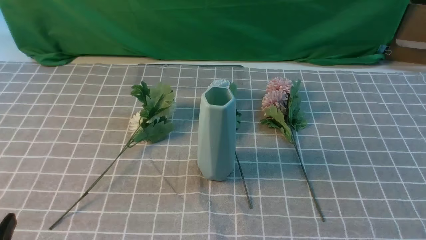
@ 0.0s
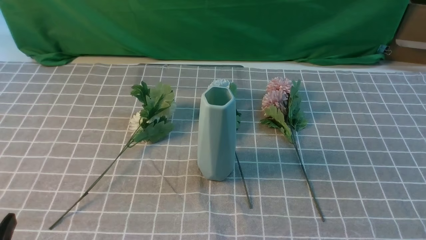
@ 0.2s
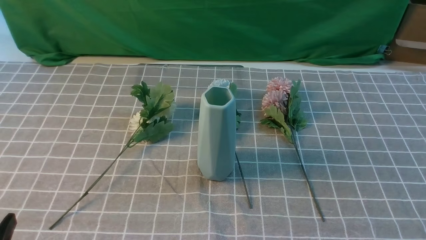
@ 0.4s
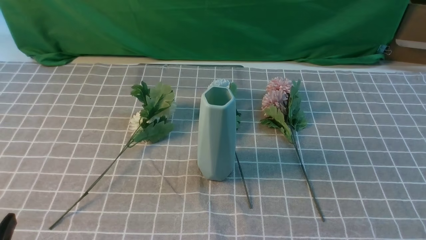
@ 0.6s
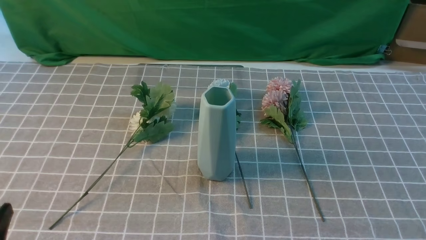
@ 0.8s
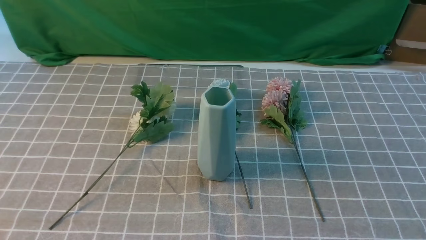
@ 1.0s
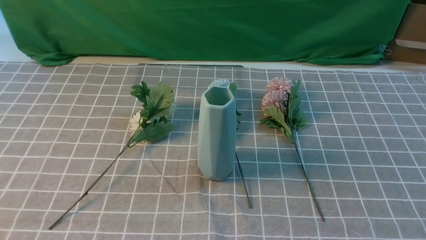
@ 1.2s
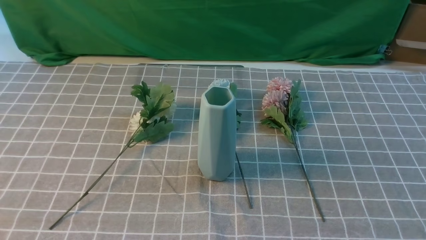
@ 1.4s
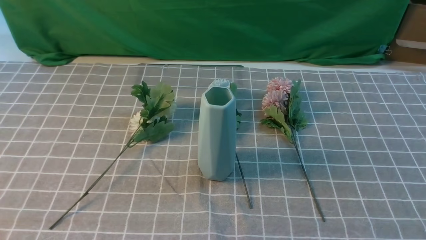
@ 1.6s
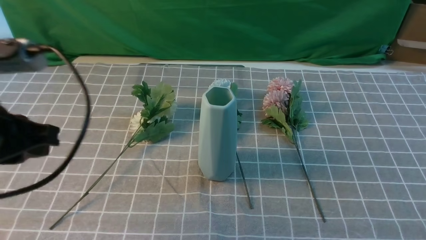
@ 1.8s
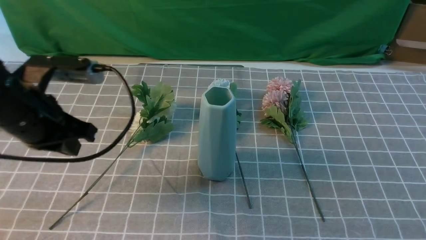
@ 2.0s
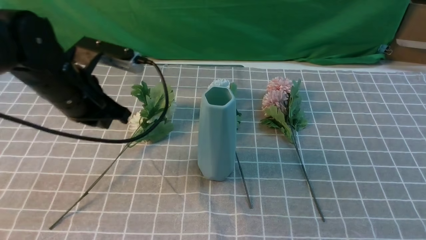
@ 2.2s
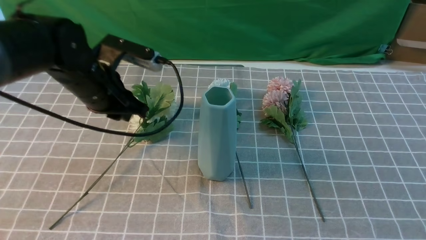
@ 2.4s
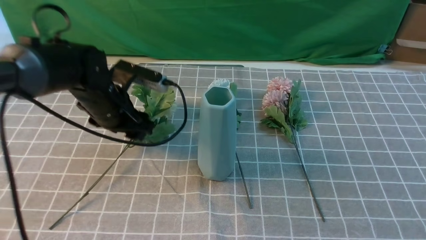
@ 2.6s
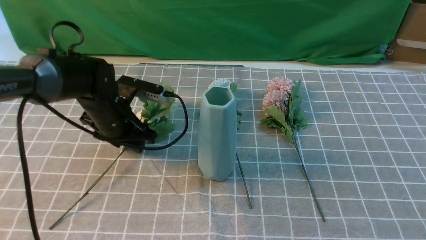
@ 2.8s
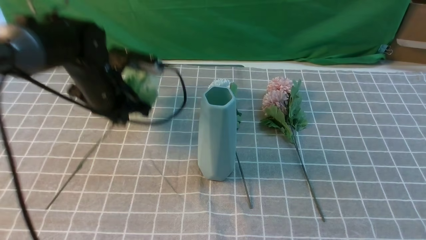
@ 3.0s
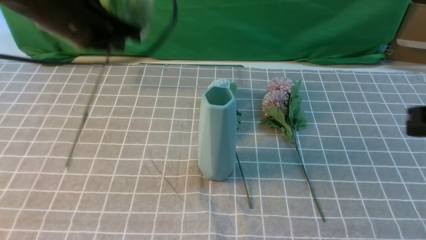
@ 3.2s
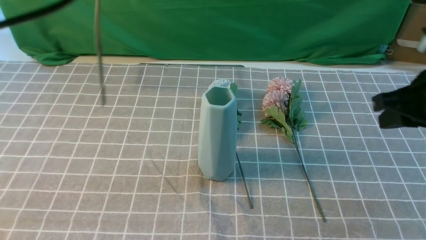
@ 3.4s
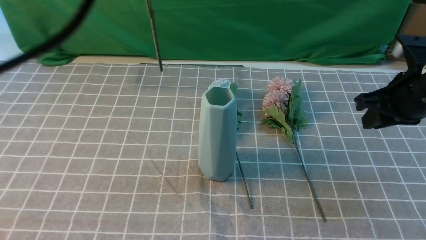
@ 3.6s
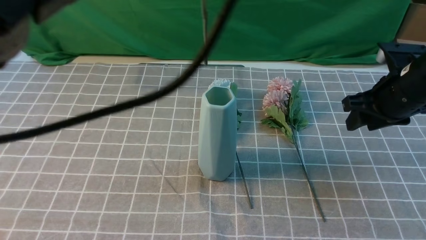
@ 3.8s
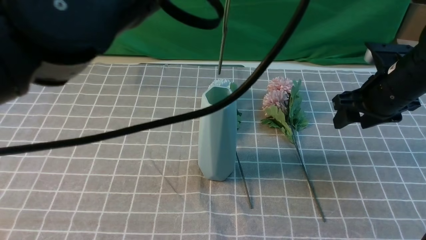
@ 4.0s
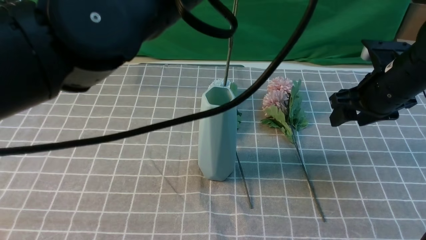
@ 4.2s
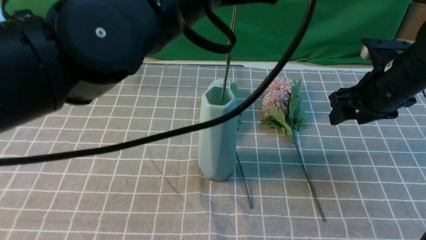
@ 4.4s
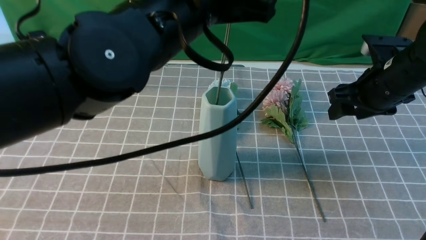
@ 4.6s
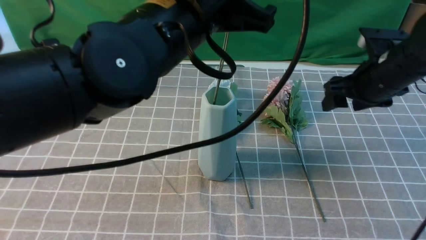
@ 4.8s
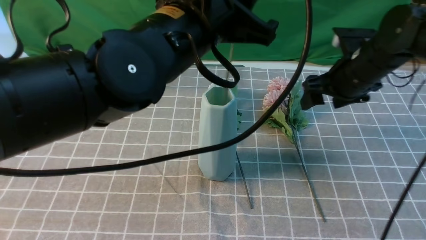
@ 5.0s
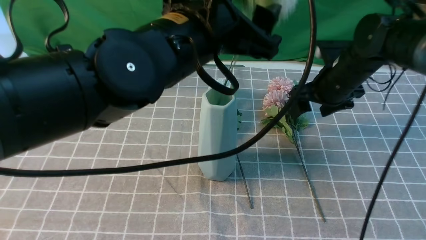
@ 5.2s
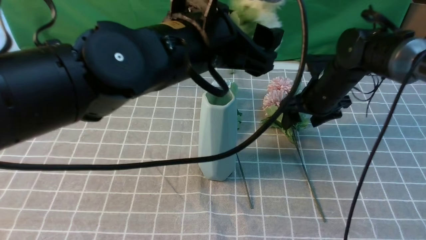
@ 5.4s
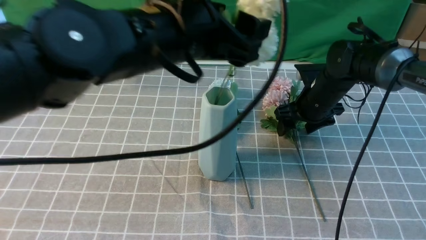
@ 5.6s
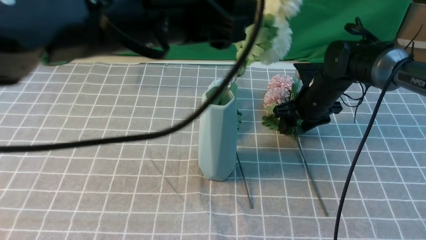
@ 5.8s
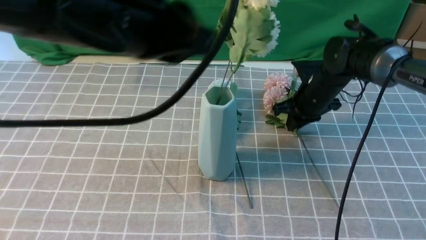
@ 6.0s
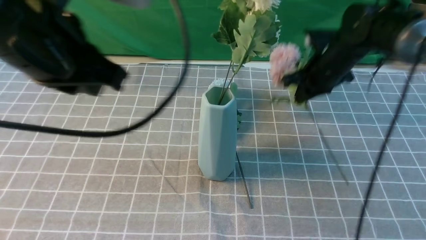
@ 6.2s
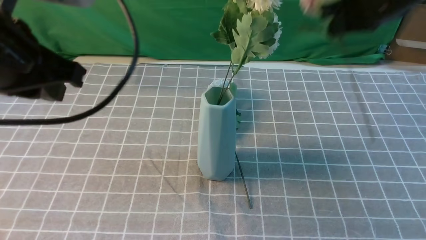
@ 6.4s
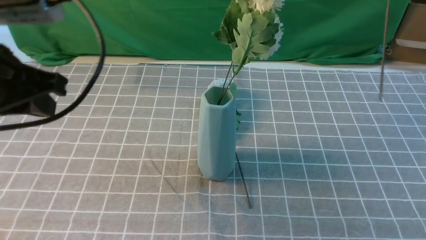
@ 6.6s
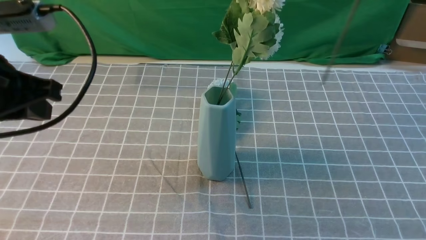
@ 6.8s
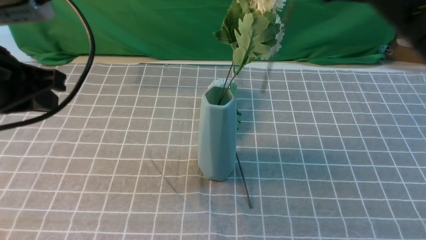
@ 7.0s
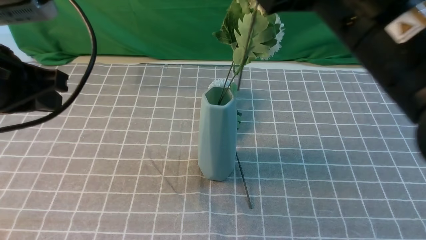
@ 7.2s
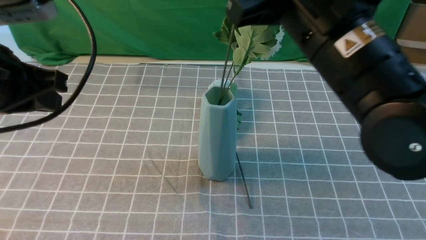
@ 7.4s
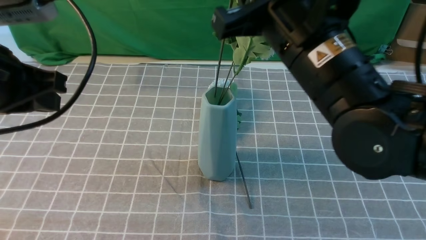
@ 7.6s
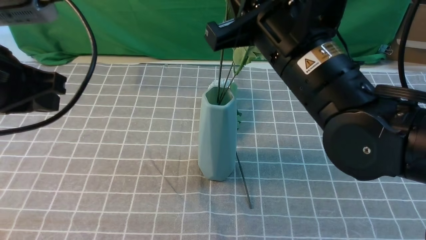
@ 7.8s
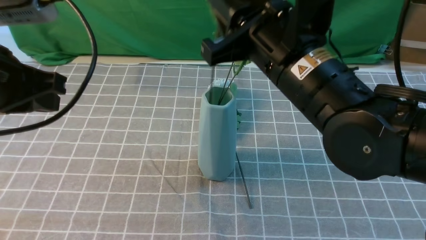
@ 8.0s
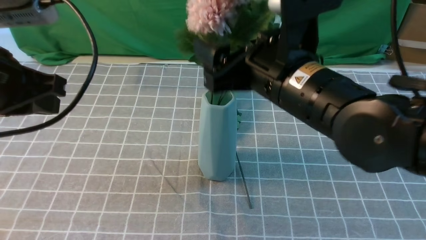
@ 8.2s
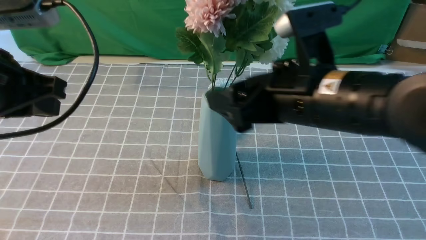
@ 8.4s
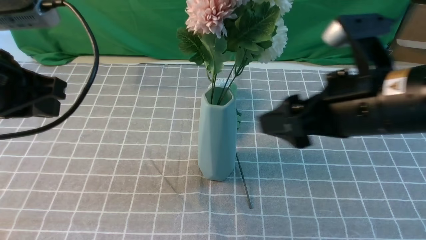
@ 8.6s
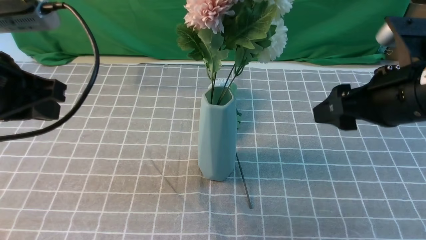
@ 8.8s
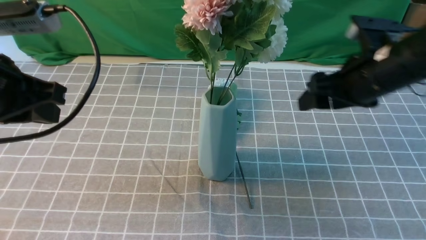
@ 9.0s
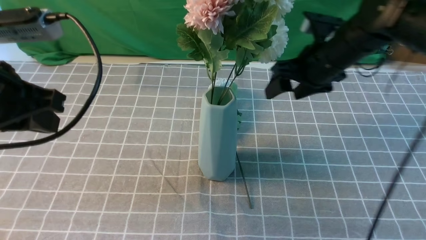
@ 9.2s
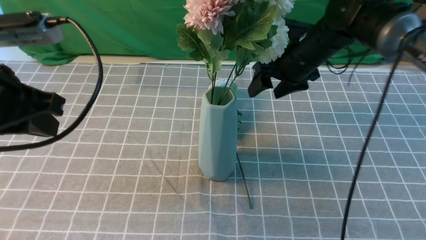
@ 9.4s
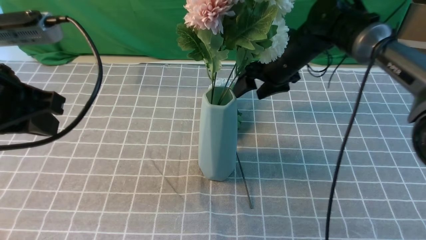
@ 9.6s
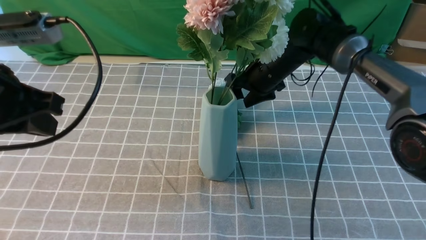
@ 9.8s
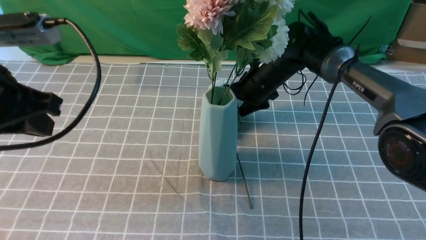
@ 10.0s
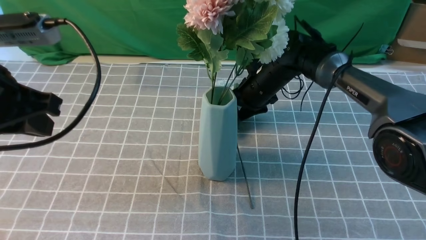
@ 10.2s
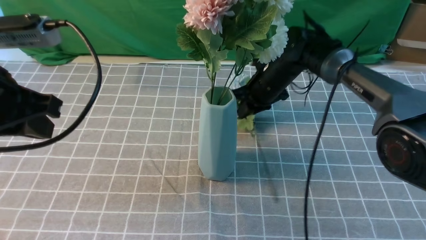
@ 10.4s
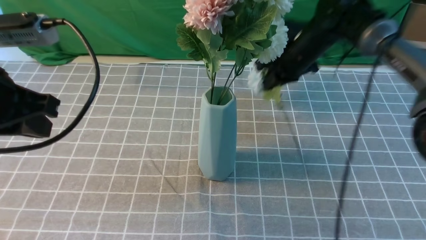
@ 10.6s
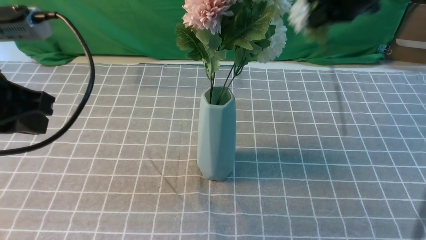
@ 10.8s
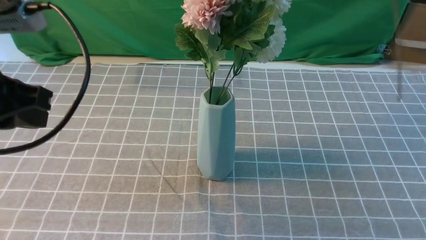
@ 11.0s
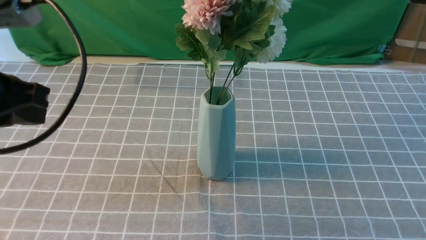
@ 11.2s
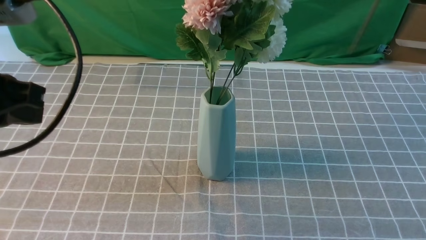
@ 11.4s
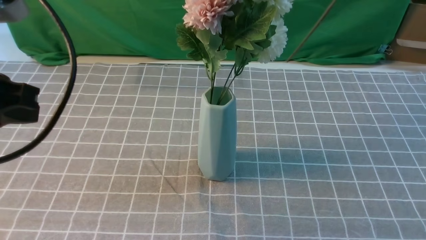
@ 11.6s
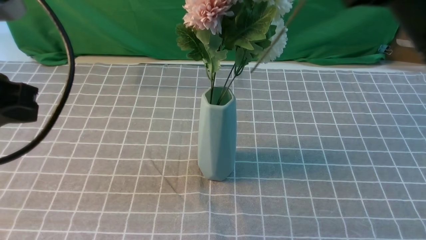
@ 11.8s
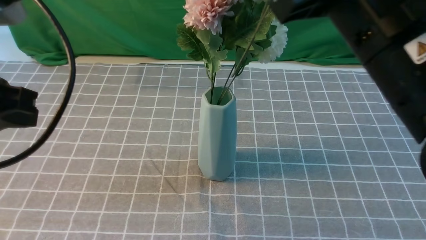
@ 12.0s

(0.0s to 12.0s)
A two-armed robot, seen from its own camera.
Task of the whole recording: insert the flowers into the vase on the table with the grey tablecloth.
Step, 0.0s - 2.8s: use the left arm to grab a bunch of fresh flowers.
Step, 3.0s - 5.6s: use the left arm to insert the flowers into the vase.
Step, 5.8s - 6.0s: use the right arm to grab a bunch of fresh flowers.
Step, 6.2s - 8.4s: use the right arm to insert the flowers into the vase.
Step, 8.6s - 10.4s: use the right arm to grab a bunch of fresh flowers.
1.6s - 3.0s: The right gripper is displaced forward and upward by roughly 15 cm. The left gripper moves forward, roughly 25 cm, and opens and closes again.
3.0s - 4.4s: The left gripper heads upward, to the right and backward, covering some 20 cm; the right gripper heads forward and downward, covering approximately 20 cm, and opens up.
4.4s - 6.0s: The left gripper moves to the left, roughly 5 cm, and opens, then closes once more; the right gripper goes about 15 cm forward, downward and to the left, and closes.
6.0s - 7.6s: The right gripper moves backward, upward and to the left, roughly 30 cm; the left gripper is displaced to the left by roughly 15 cm.
7.6s - 9.0s: The right gripper travels to the right, forward and downward by approximately 15 cm, and opens up.
9.0s - 10.4s: The right gripper moves forward, downward and to the left, roughly 20 cm, and closes.
10.4s - 12.0s: The left gripper shifts by approximately 5 cm. The right gripper goes some 35 cm backward and upward.

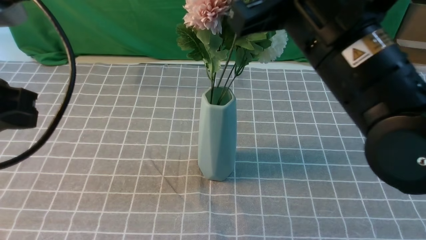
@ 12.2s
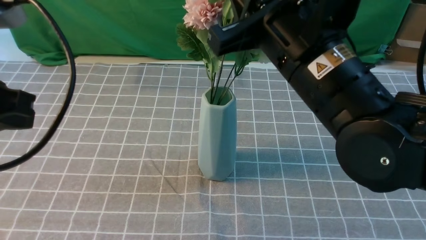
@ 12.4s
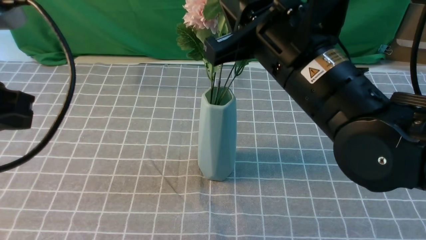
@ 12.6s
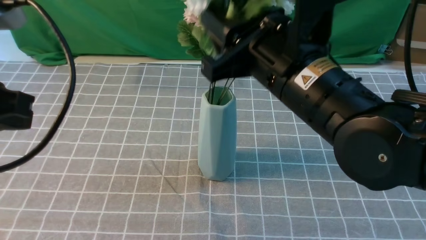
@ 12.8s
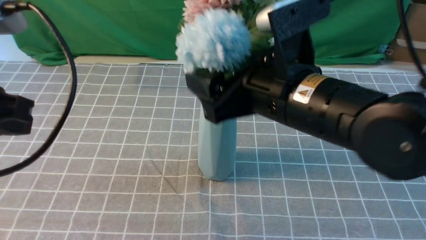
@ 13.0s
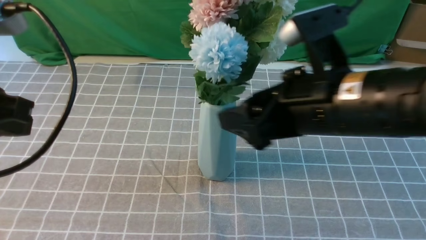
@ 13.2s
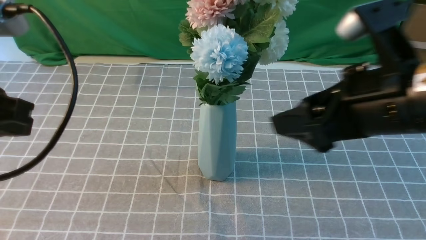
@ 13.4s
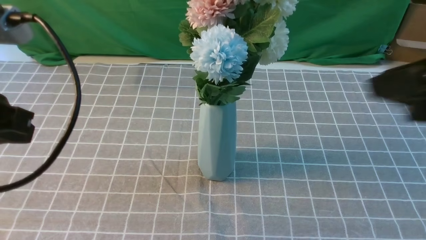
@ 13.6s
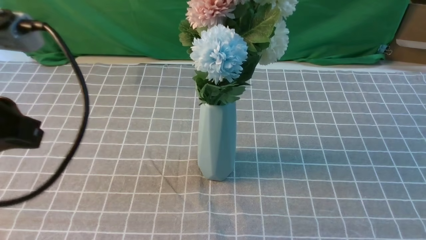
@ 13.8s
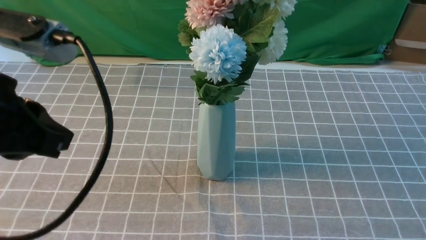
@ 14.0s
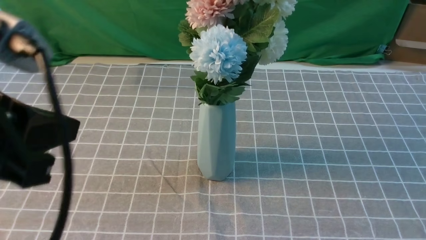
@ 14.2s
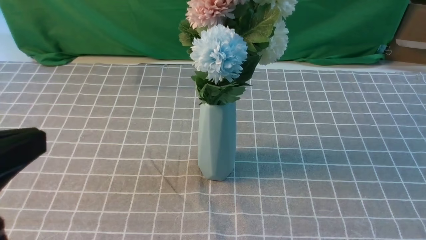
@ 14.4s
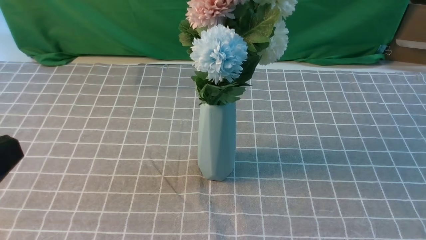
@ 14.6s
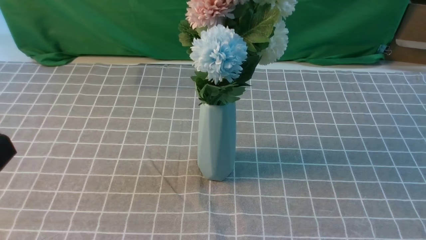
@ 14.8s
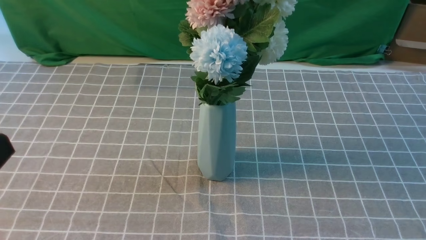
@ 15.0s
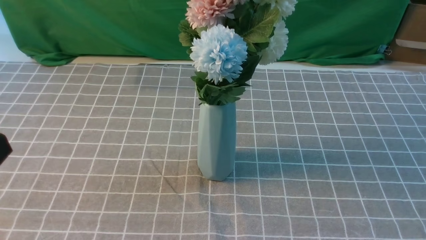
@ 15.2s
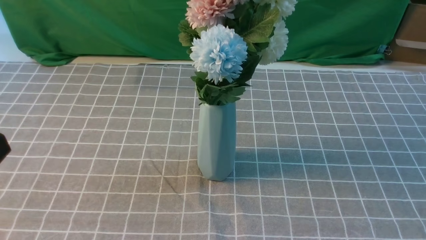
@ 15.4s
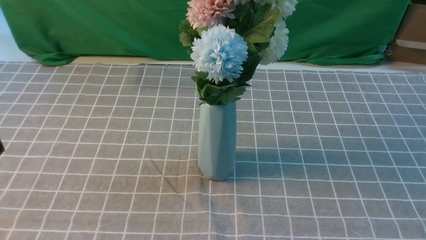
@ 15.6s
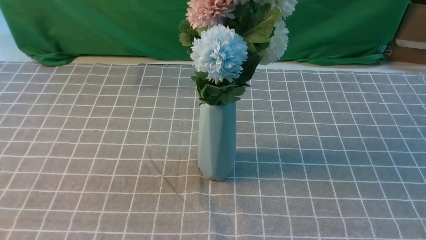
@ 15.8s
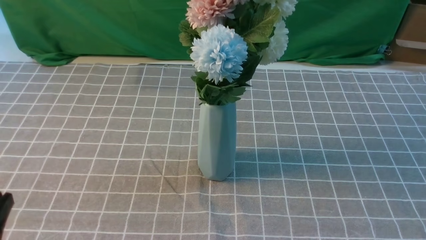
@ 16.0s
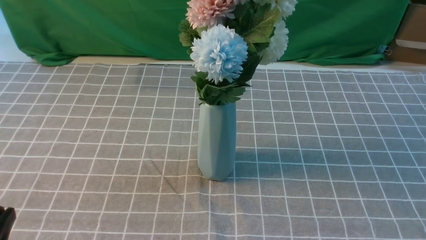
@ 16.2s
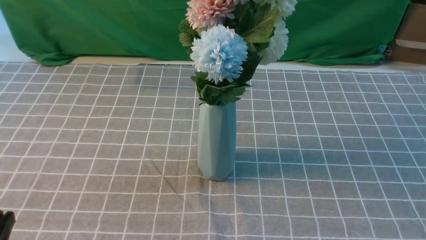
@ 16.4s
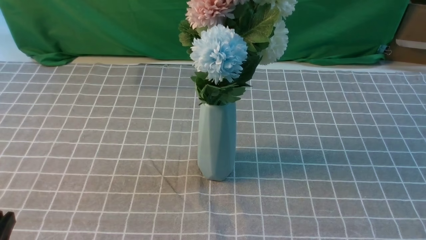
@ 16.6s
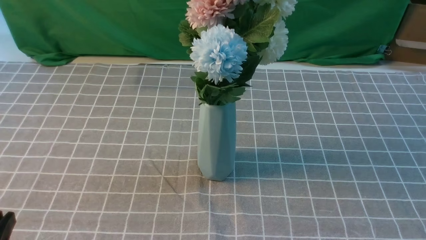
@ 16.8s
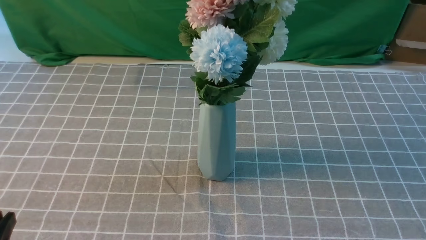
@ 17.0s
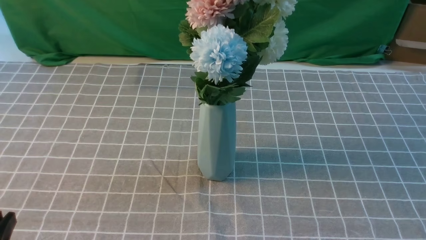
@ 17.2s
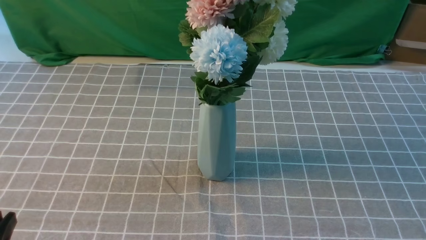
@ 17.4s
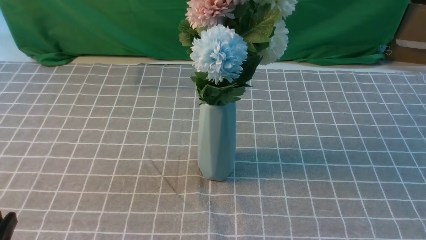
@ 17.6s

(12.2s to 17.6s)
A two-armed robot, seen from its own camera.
Task of the whole recording: insert the flowers into the vase on the table with the grey tablecloth.
12.2s - 13.6s: The right gripper shifts roughly 15 cm to the right and backward, and opens and closes again.
13.6s - 15.0s: The left gripper travels backward by roughly 15 cm. Meanwhile the right gripper shifts about 20 cm backward and to the right.
15.0s - 16.2s: The left gripper heads downward, covering about 15 cm.
16.2s - 17.6s: Both grippers stay about where they are.
